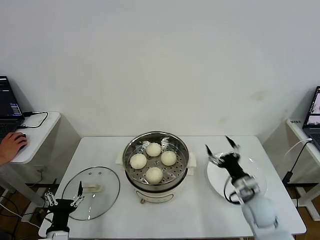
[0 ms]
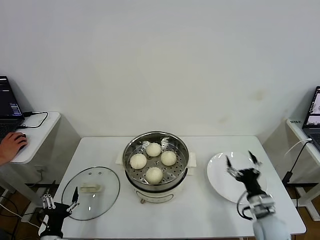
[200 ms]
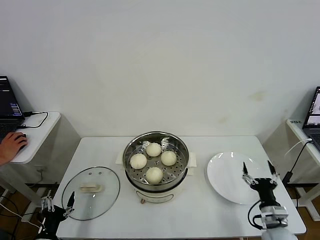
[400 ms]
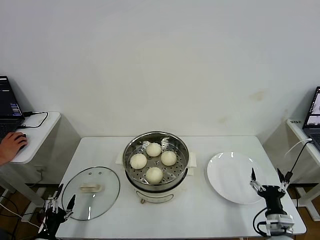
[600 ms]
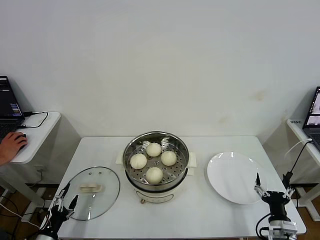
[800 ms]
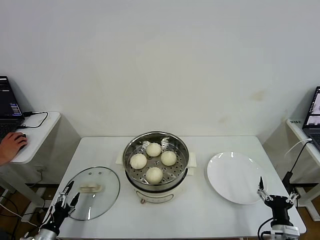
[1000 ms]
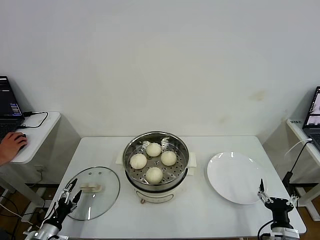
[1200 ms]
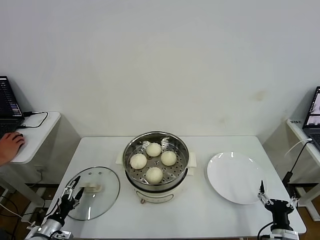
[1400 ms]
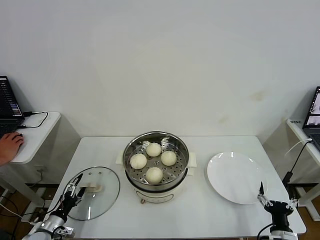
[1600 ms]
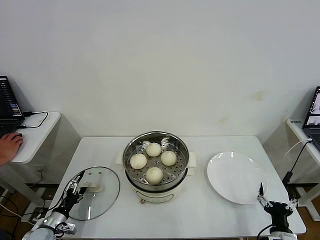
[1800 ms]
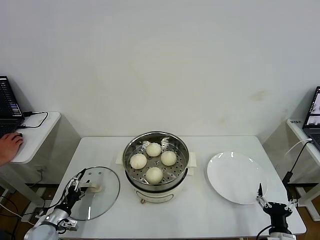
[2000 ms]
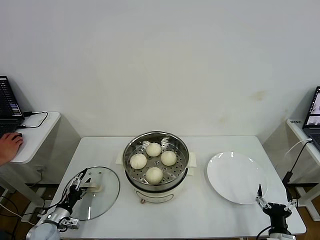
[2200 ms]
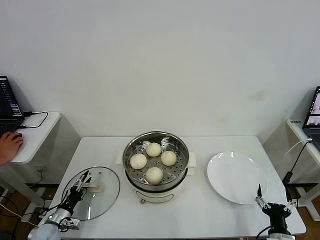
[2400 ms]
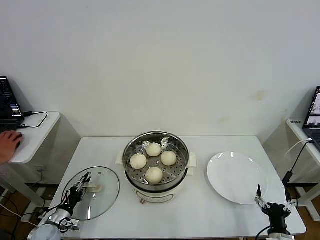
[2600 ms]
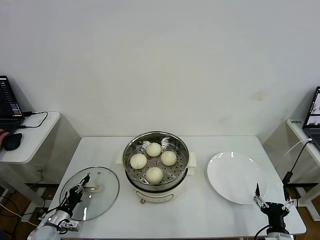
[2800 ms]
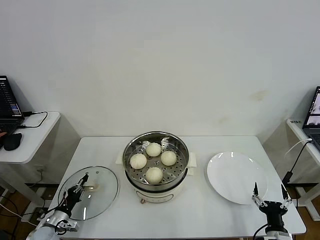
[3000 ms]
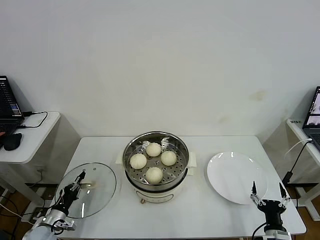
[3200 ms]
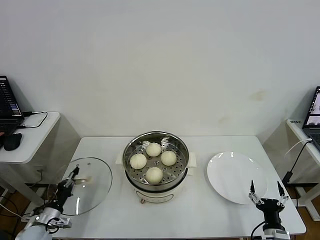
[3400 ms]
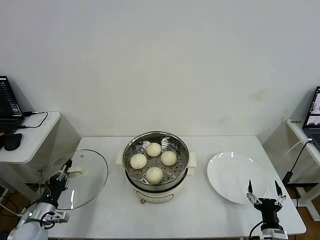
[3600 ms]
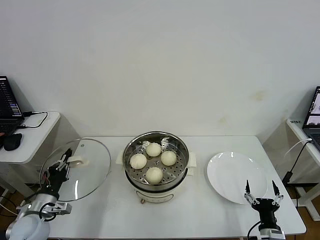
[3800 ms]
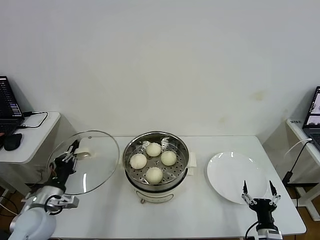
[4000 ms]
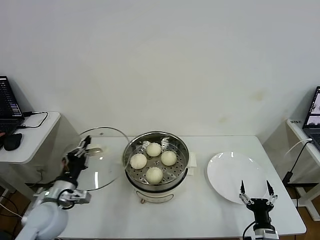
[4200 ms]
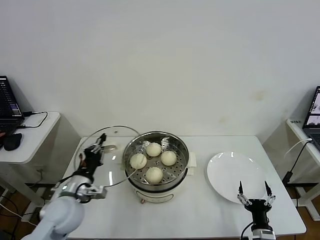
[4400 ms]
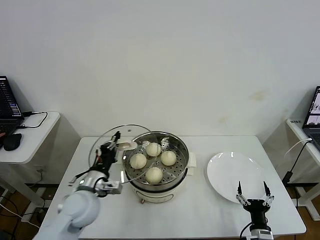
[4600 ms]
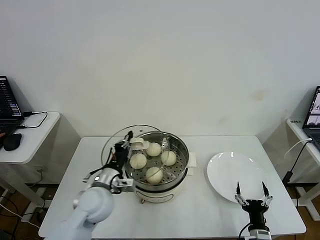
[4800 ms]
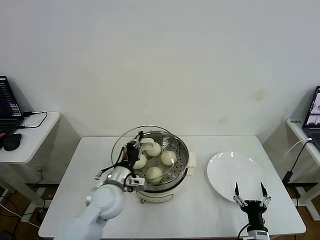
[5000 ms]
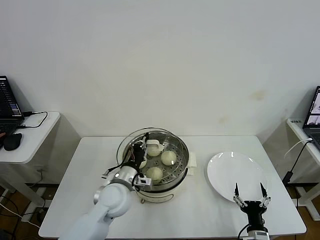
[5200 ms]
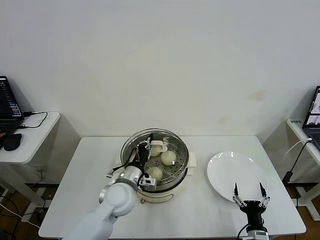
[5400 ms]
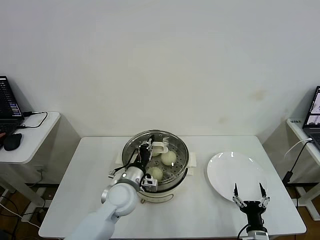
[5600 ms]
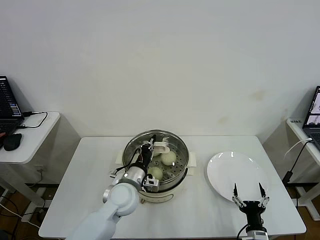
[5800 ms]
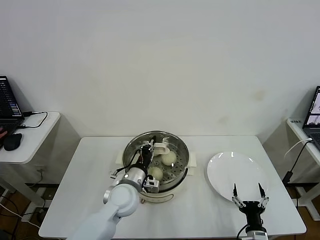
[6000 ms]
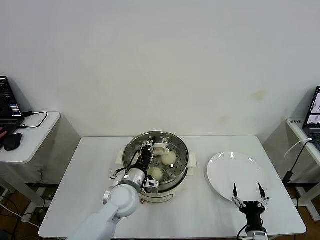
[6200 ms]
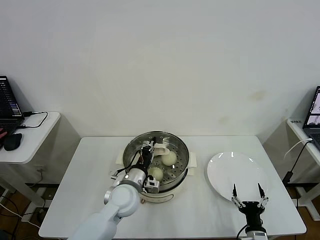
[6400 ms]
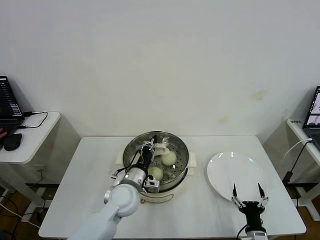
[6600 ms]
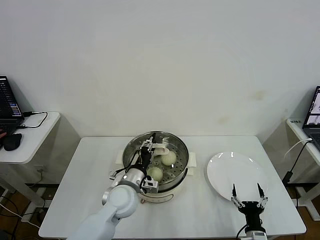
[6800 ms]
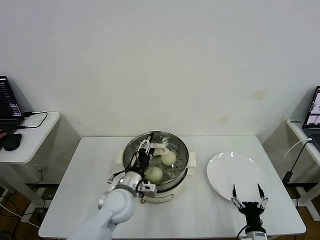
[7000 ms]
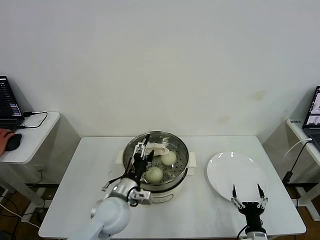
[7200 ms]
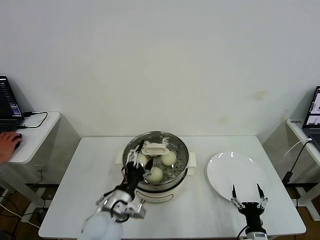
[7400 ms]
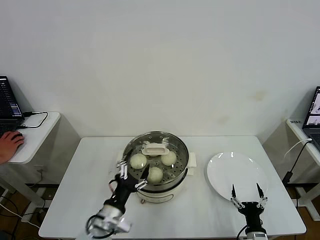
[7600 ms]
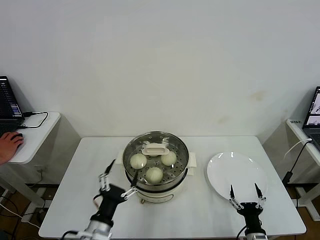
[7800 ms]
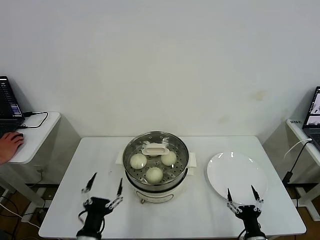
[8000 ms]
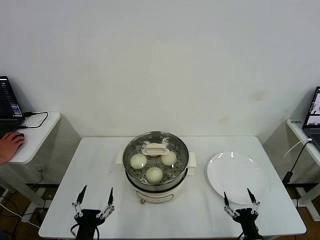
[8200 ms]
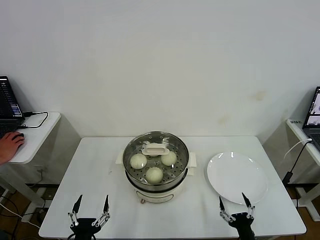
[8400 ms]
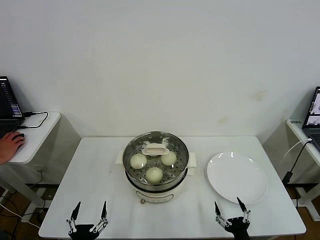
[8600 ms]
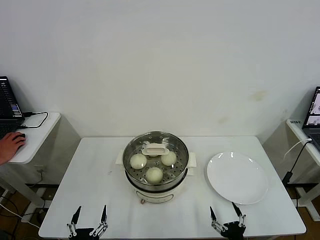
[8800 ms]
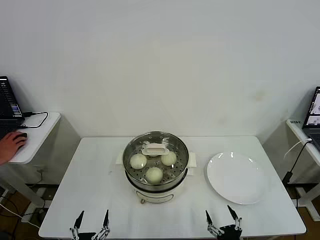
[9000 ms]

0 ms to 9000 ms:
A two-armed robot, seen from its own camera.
Task of the whole recording: take steamed baozi put them in steamer then cover it.
Step, 0 ms to 3000 ms: Grasp the pot lid with left gripper.
Step, 3200 ms to 7200 ms: Place the pot lid on the steamer with left gripper.
0 ms to 1600 ms: The right gripper travels backward, downward and to the right by approximately 20 cm; the left gripper goes about 15 cm to the left, downward and forward.
1600 ms to 3000 ms: The left gripper closes its fingers.
3000 ms to 4400 ms: The left gripper shifts about 25 cm upward and to the right.
4400 ms to 6000 ms: The left gripper shifts approximately 15 cm to the right.
6000 ms to 7600 ms: The left gripper is displaced backward by about 10 cm, and opens.
7600 ms to 9000 ms: The right gripper heads backward, covering approximately 5 cm. The left gripper goes about 20 cm backward, downward and to the left.
